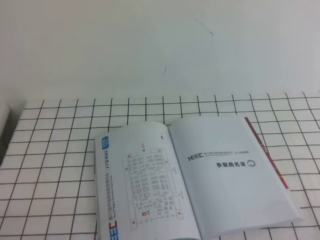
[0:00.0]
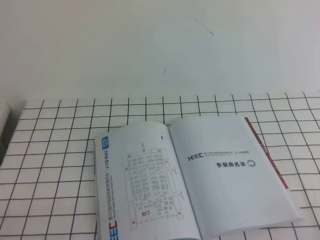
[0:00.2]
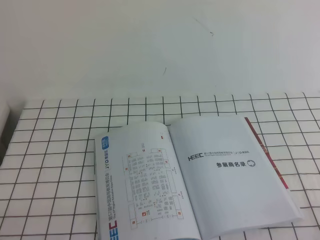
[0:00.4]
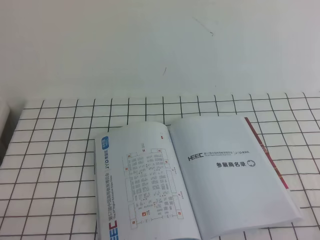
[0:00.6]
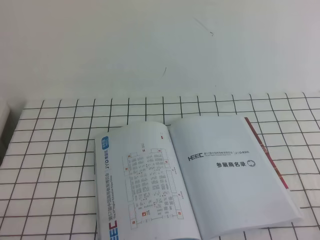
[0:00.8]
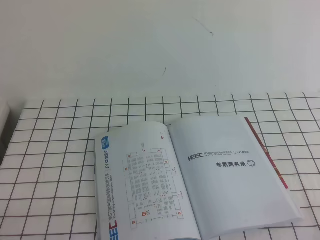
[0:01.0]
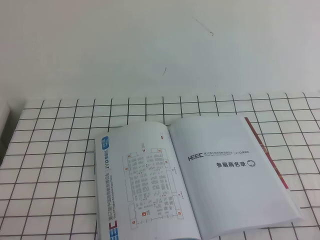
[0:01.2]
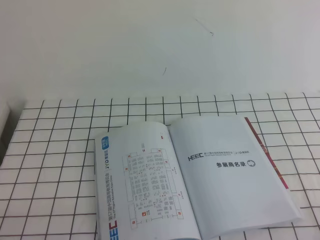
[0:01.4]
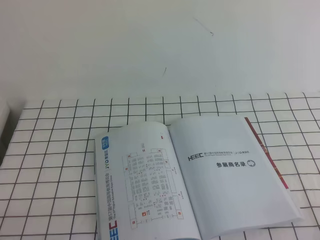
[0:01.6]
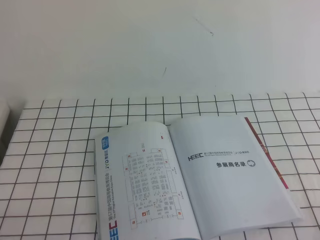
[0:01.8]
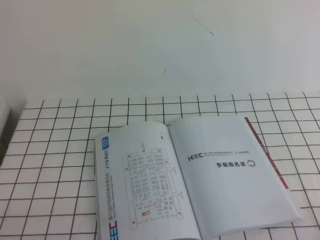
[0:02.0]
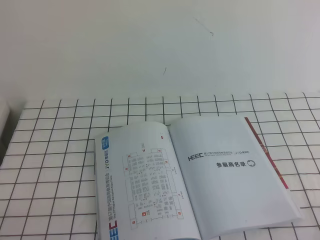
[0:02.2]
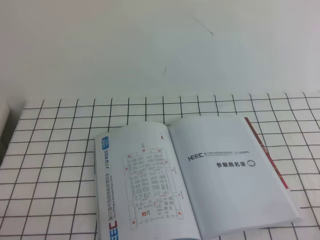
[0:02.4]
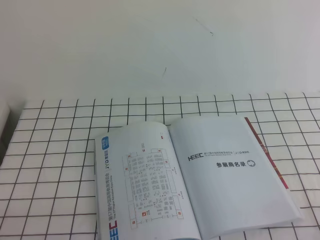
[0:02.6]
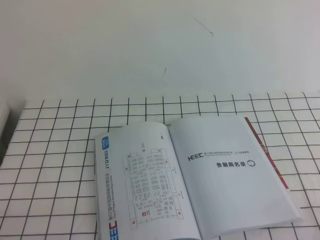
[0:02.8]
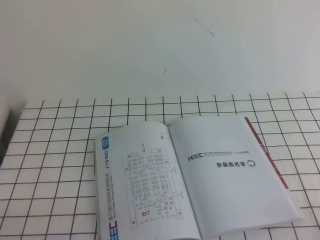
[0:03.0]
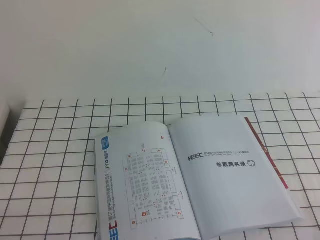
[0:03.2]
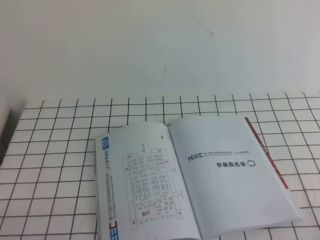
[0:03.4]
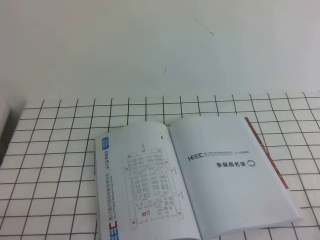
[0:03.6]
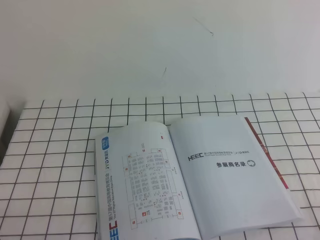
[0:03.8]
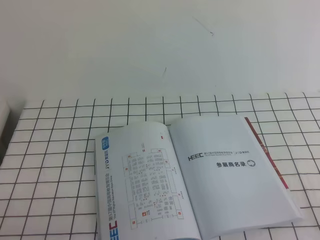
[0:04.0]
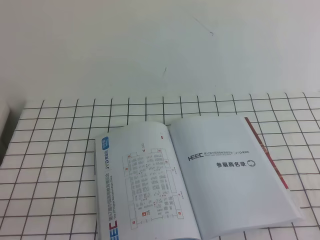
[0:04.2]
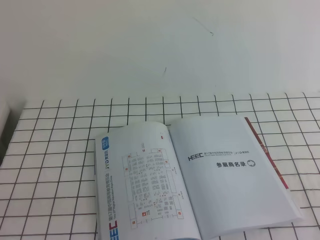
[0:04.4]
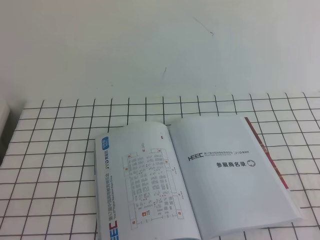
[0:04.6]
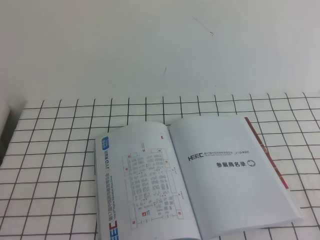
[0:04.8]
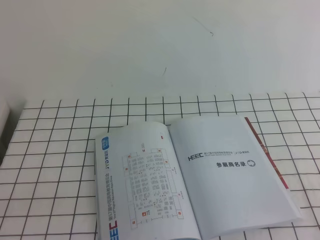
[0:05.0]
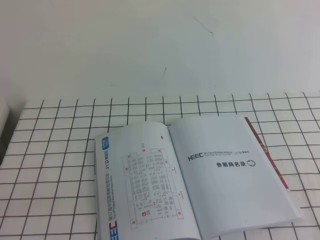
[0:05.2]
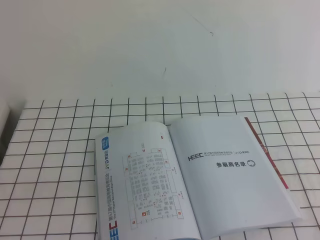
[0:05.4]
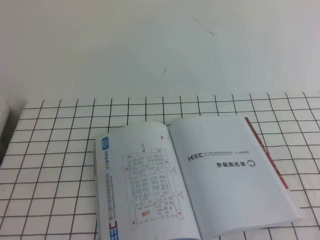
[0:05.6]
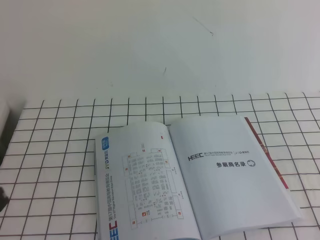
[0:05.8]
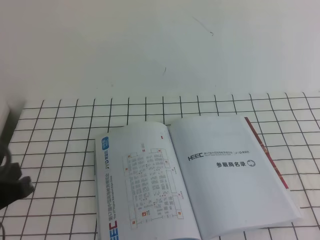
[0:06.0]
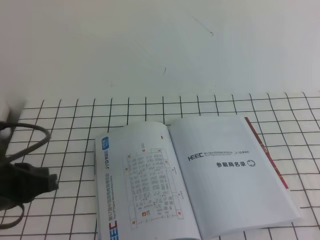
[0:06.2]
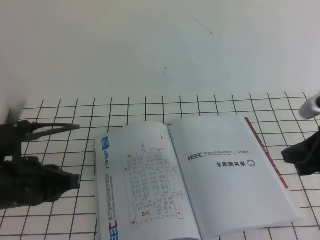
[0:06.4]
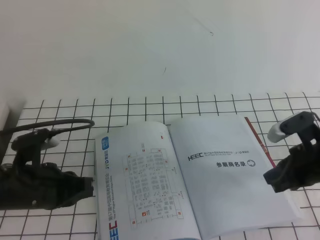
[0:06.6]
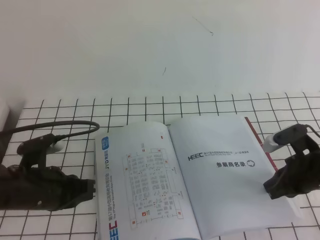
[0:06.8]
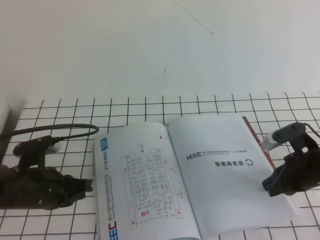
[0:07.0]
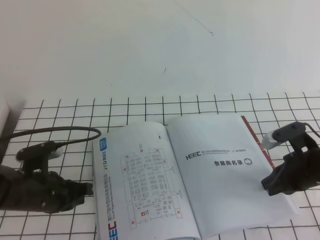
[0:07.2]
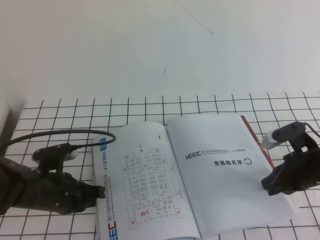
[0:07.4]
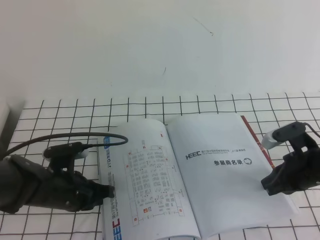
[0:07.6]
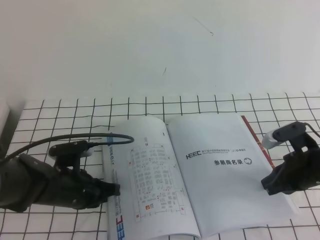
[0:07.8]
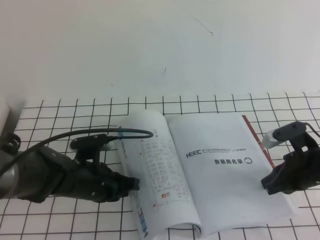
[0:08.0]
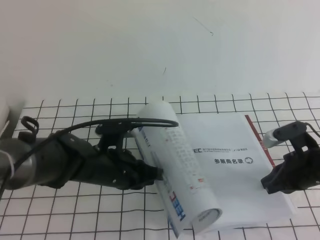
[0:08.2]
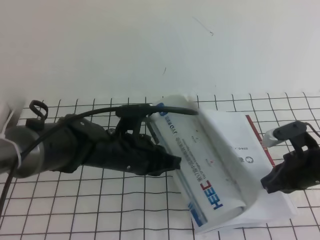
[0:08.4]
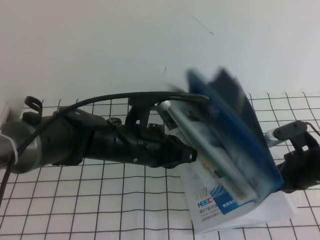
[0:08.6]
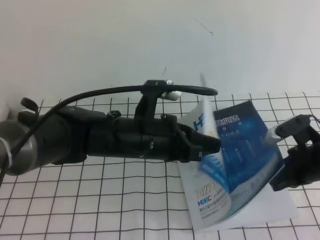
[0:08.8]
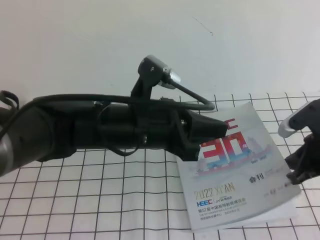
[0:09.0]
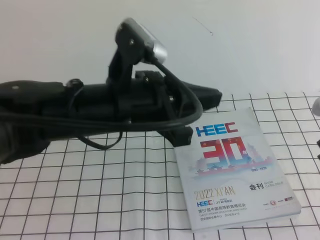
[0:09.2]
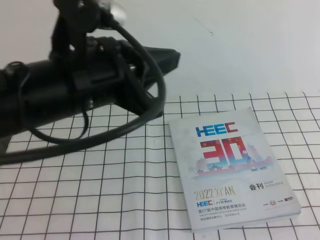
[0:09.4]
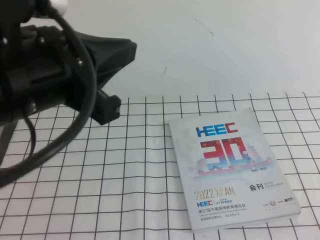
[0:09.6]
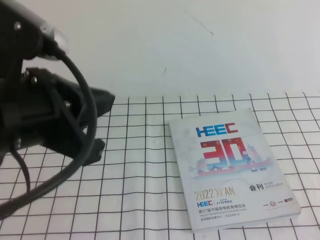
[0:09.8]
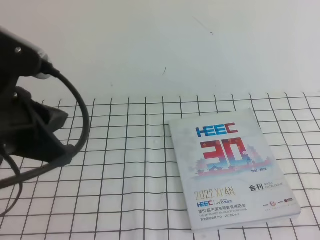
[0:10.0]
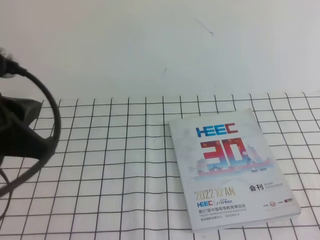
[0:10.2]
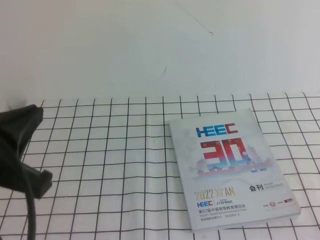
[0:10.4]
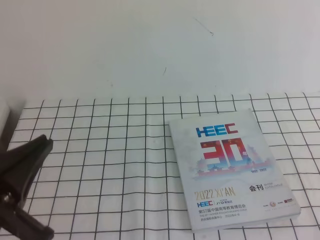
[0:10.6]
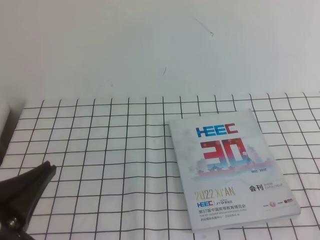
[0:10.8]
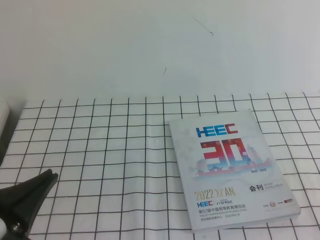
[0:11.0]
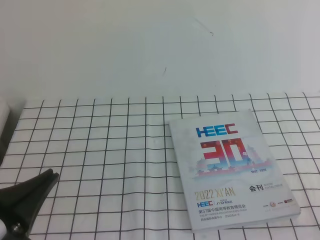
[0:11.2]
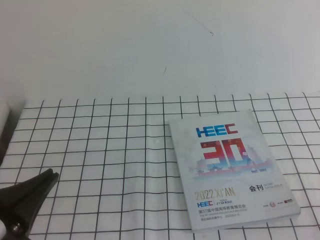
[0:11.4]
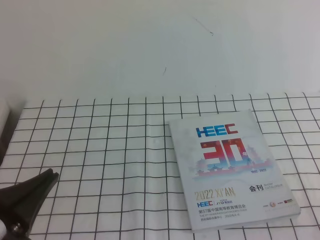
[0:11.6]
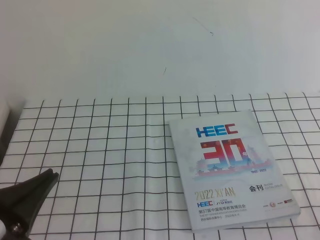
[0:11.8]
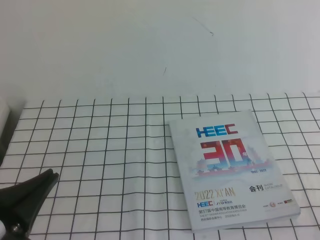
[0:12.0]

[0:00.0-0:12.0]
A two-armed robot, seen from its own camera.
Task of the whole recording: on the white tablecloth, hold the book with one hand and close it with the other.
0:00.0 to 0:03.0: The two grippers keep their place.
0:04.4 to 0:06.0: The left gripper shifts about 10 cm forward.
0:06.0 to 0:07.6: The two grippers go about 20 cm downward and forward.
0:07.6 to 0:09.0: The left gripper shifts roughly 20 cm upward and to the right, while the right gripper travels upward by roughly 5 cm.
0:09.0 to 0:10.4: The right gripper heads backward and upward, covering some 30 cm, while the left gripper is displaced to the left, backward and upward by about 20 cm.
0:10.4 to 0:12.0: The left gripper heads downward and backward, covering approximately 10 cm.

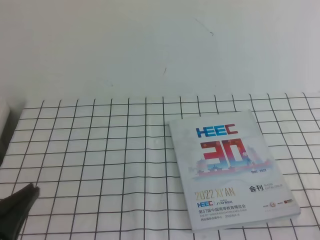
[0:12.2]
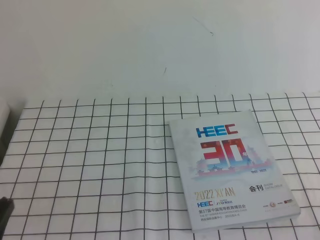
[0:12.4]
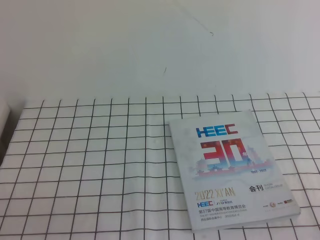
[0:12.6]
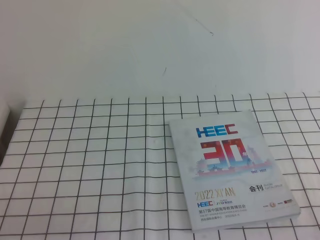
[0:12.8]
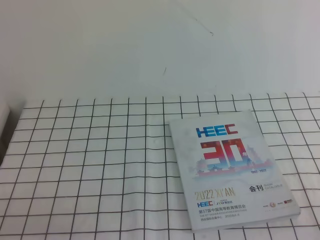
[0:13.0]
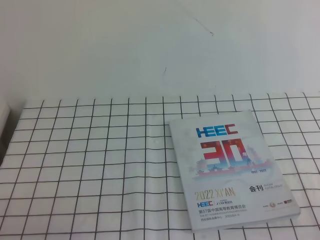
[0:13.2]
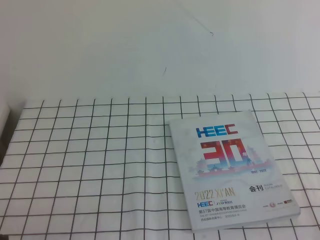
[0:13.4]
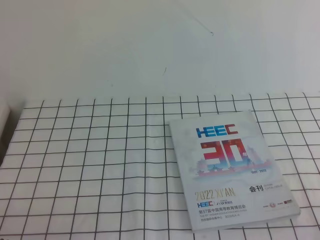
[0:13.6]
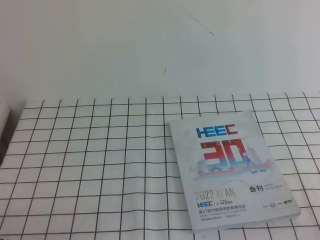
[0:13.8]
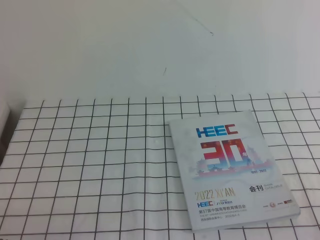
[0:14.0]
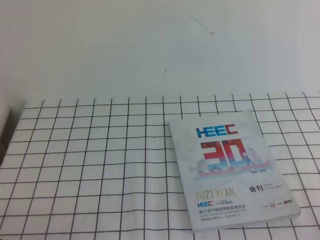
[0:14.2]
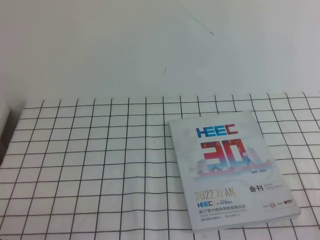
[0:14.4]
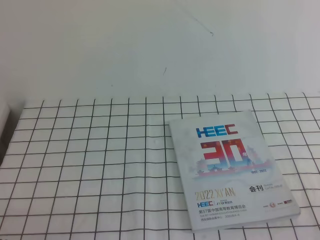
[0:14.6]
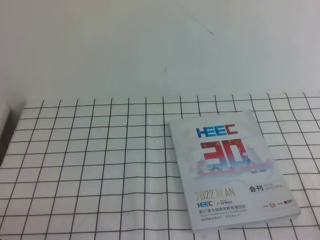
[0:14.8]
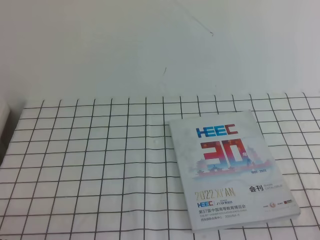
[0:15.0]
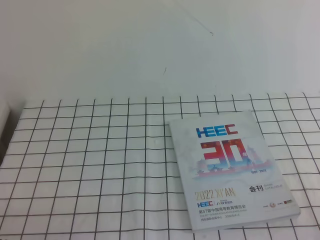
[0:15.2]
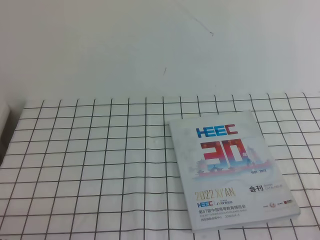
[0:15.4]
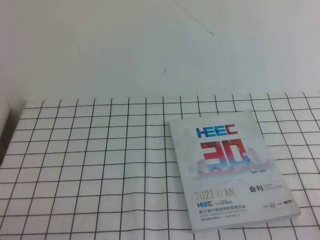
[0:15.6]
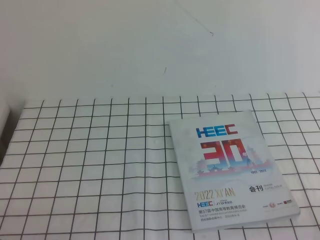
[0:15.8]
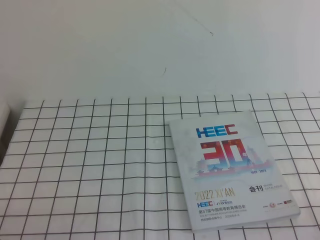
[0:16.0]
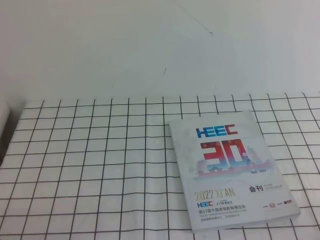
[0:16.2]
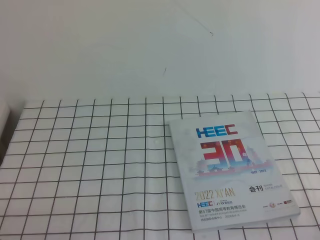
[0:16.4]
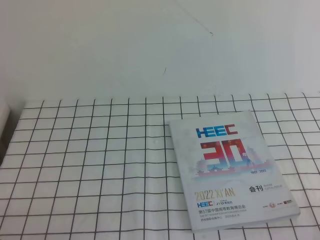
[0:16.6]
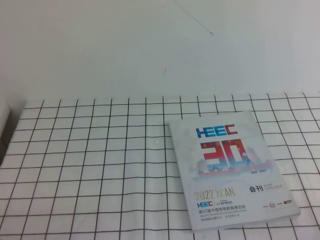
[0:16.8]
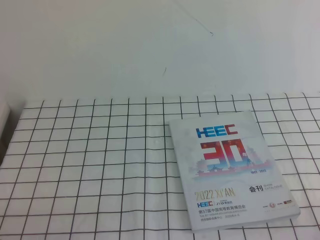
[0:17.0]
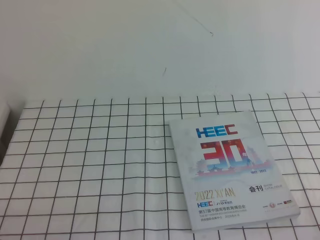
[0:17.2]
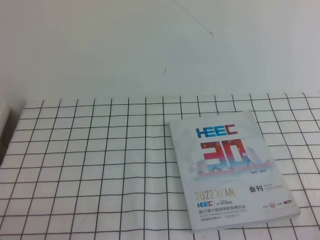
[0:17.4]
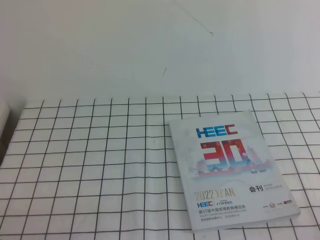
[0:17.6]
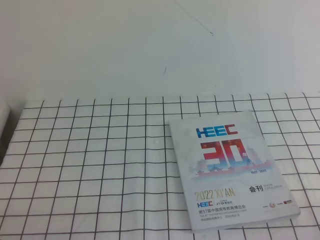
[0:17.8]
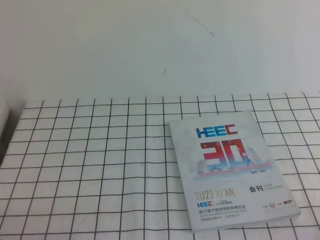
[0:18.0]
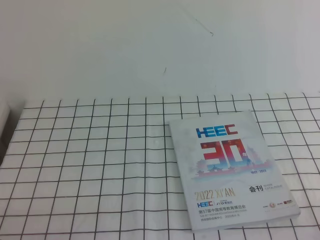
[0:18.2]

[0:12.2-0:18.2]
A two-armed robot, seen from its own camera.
Task of the whole recording: on the white tablecloth, hold the book with one hand and close it with the other.
Step, 0:12.2 to 0:18.2: Close the open book.
0:12.2 to 0:13.8: The left gripper is displaced downward by approximately 10 cm.
0:16.6 to 0:18.2: The two grippers keep their place.
